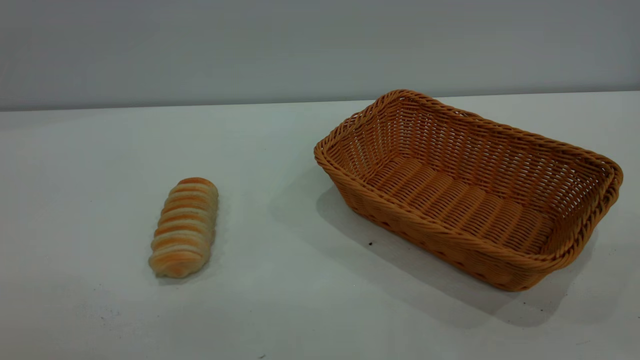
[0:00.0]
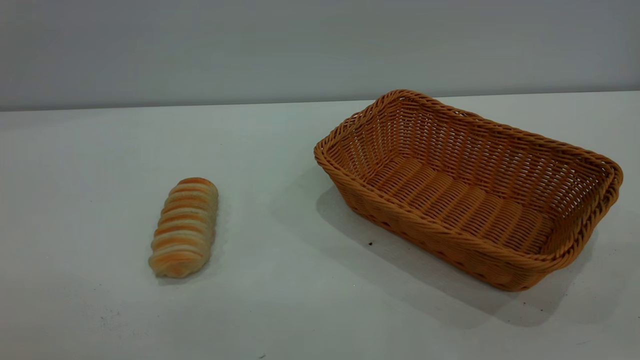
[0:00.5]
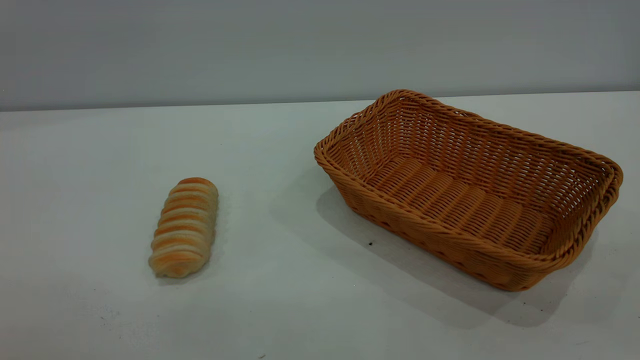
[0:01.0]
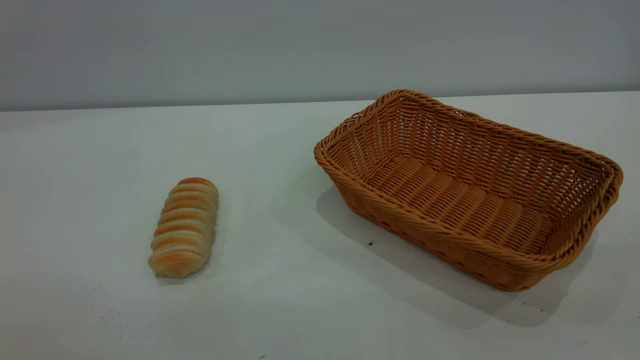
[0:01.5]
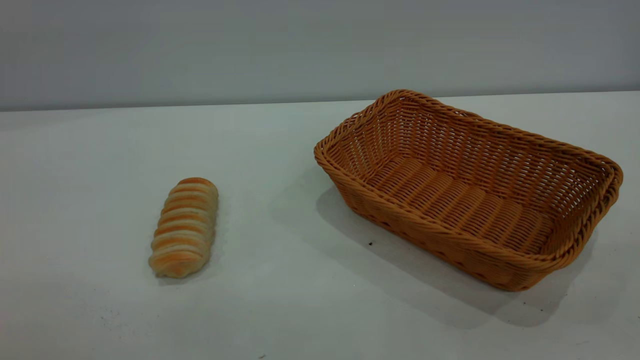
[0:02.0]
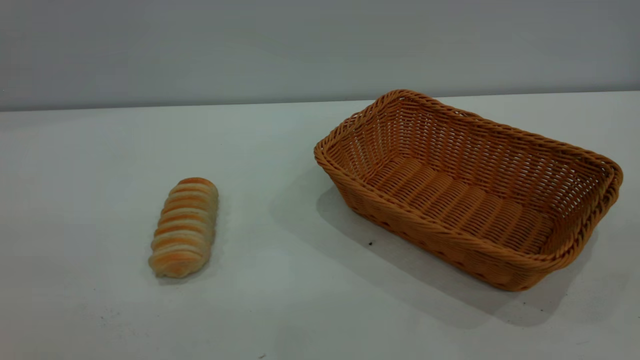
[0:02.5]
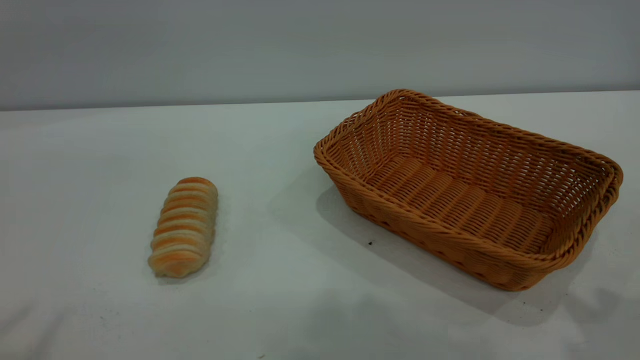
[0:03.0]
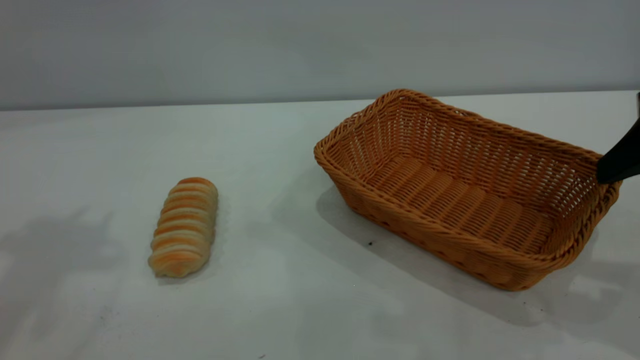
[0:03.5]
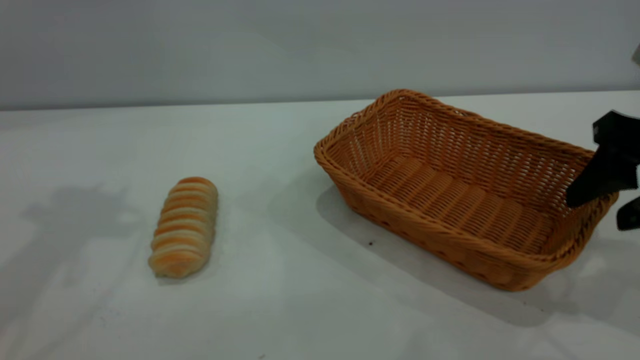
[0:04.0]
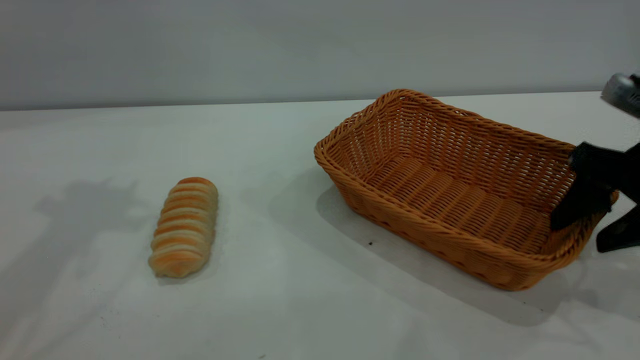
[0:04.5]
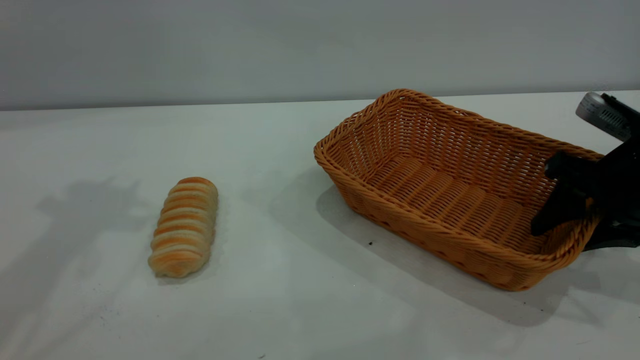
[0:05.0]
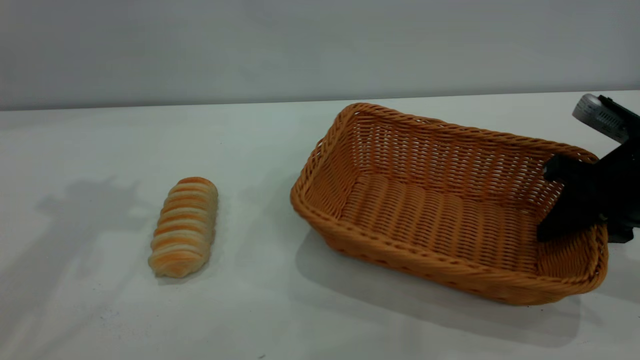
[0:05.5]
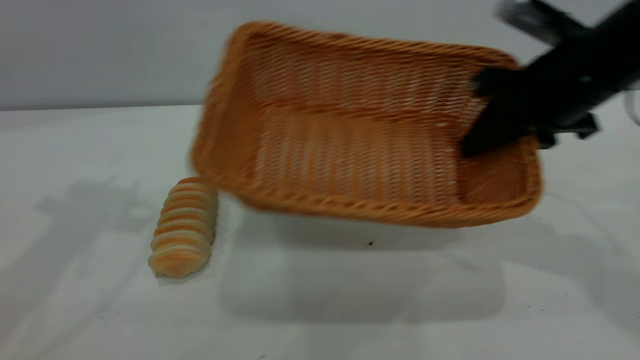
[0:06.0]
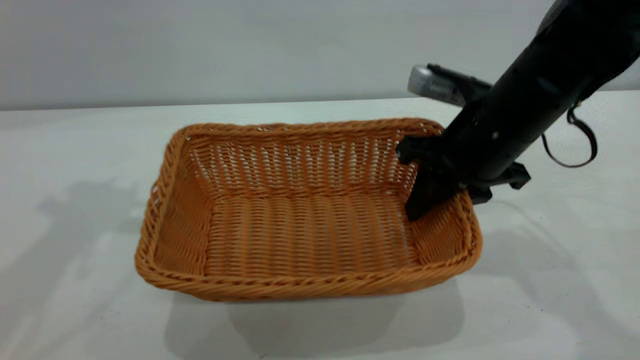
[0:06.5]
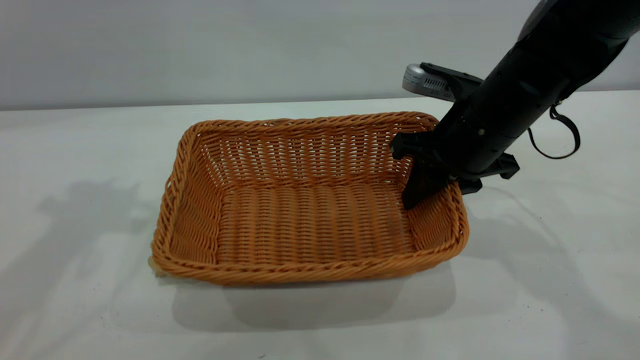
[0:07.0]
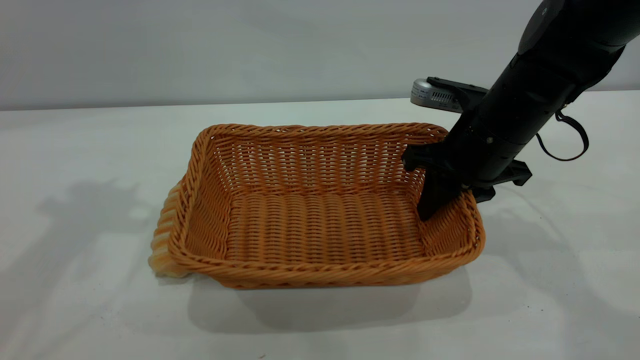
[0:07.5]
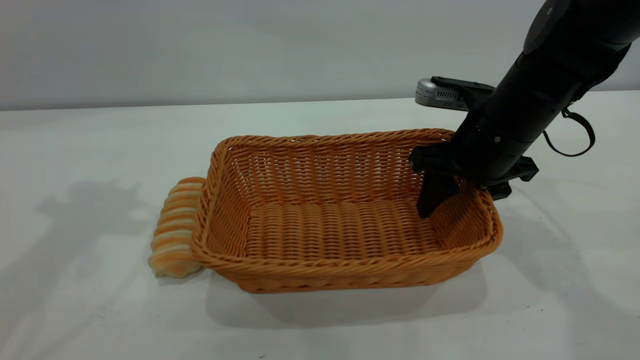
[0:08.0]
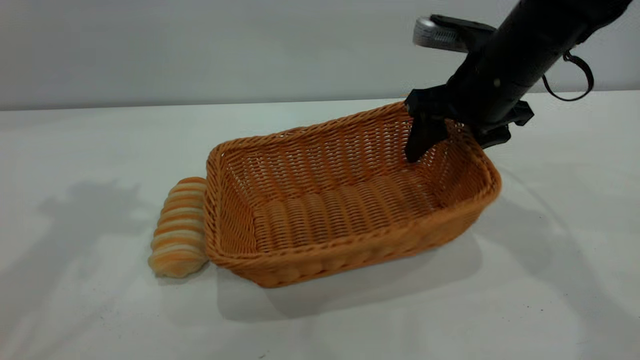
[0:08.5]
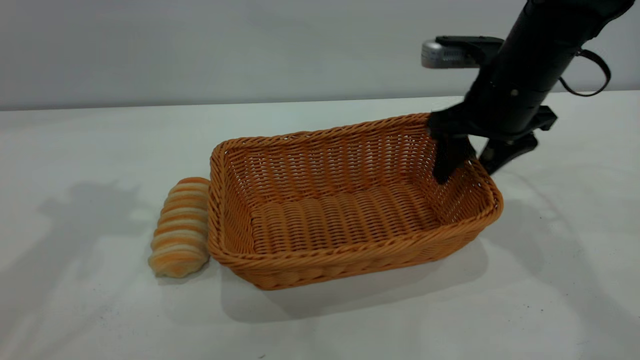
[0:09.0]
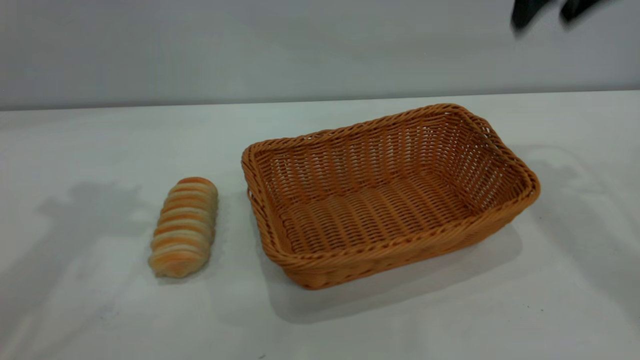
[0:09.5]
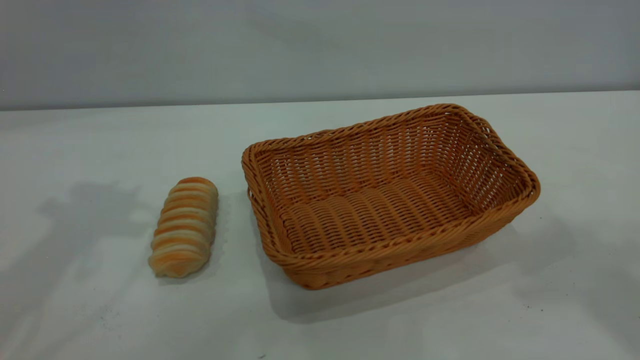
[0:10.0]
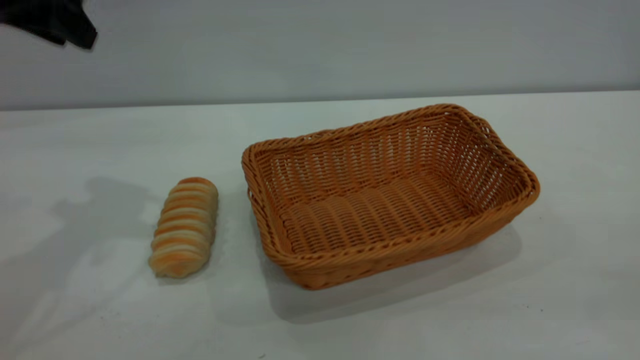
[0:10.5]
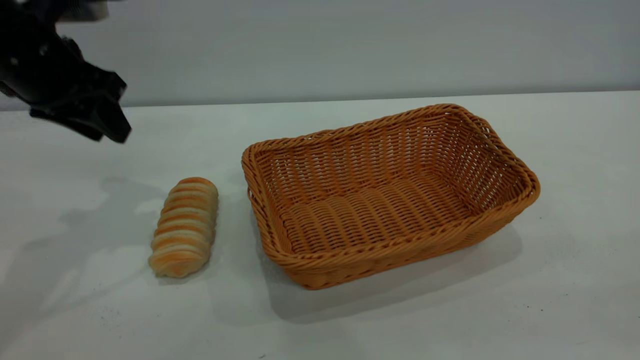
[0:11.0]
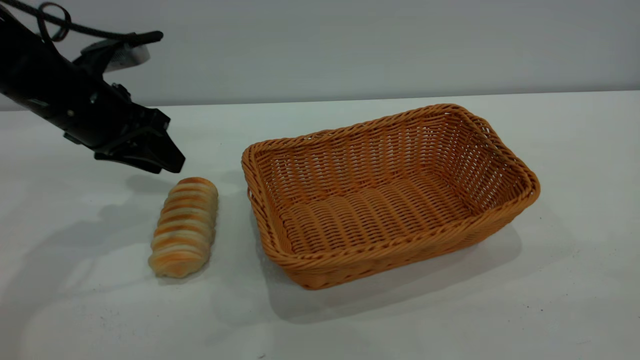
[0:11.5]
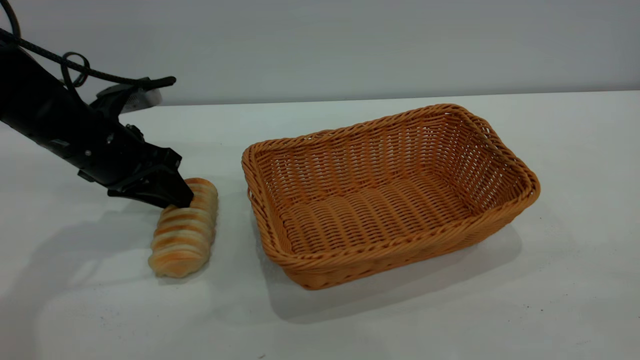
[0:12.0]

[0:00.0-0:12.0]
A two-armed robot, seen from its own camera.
Task of the whole recording: One hand grasps the yellow basket and places it in the middle of the table, while the other hand picks up the long bread and puts it into the yellow basket.
Step, 0:00.0 to 0:09.0: Move the basket to the center of view.
0:00.0 to 0:02.0: The two grippers keep their place.
0:02.0 to 0:04.0: The right gripper is displaced forward and downward by some 30 cm, and opens.
0:04.0 to 0:06.0: The right gripper goes approximately 10 cm forward and to the left, and closes its fingers.
0:06.0 to 0:08.0: The right gripper moves downward, some 5 cm, and opens.
0:08.0 to 0:10.0: The right gripper moves upward, approximately 35 cm.
0:10.0 to 0:12.0: The left gripper is displaced downward by roughly 25 cm.

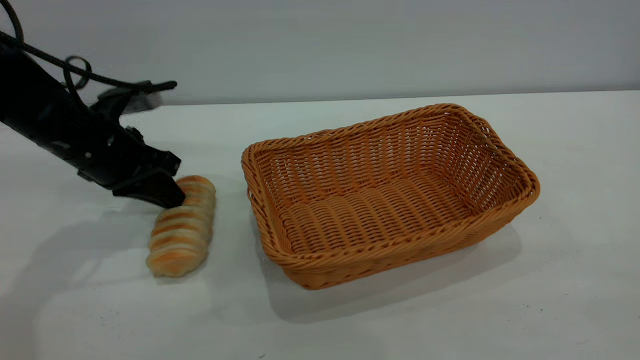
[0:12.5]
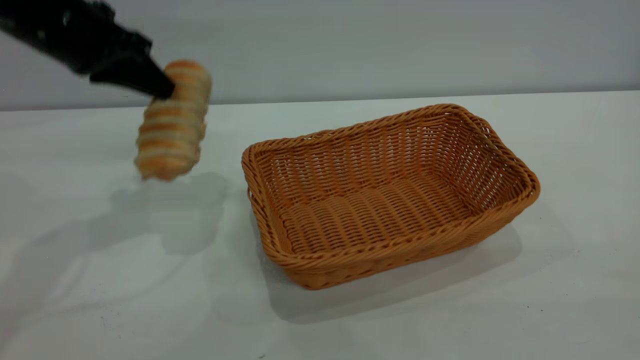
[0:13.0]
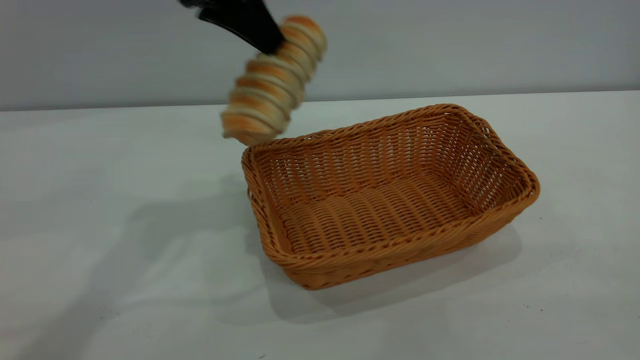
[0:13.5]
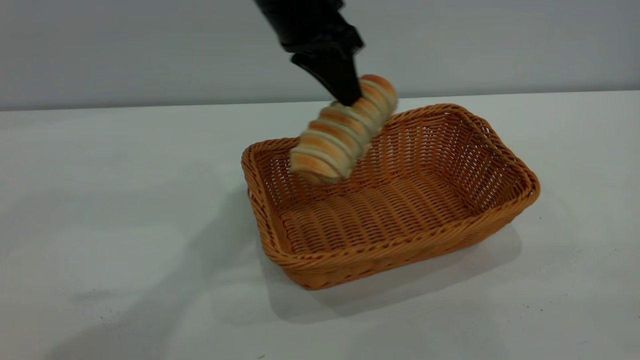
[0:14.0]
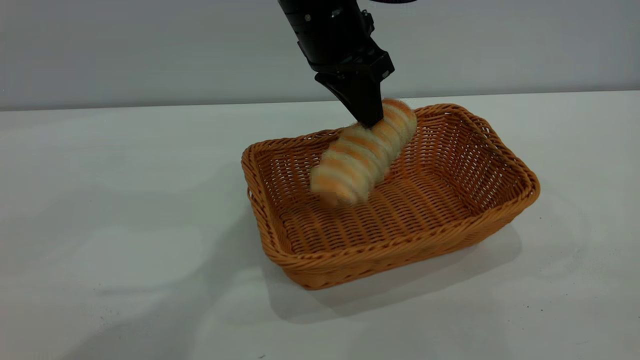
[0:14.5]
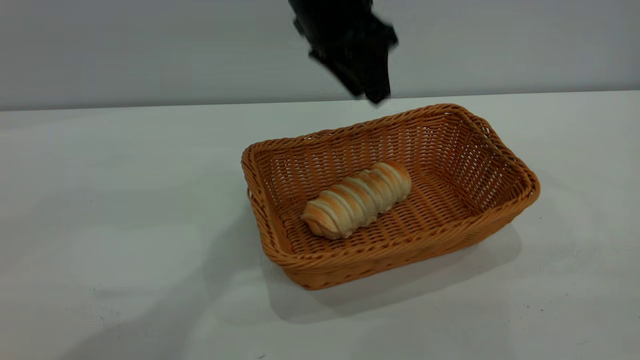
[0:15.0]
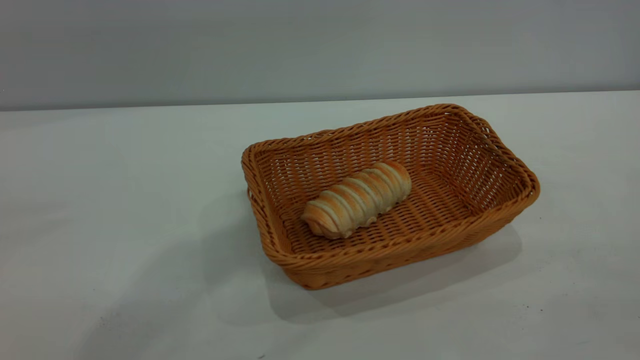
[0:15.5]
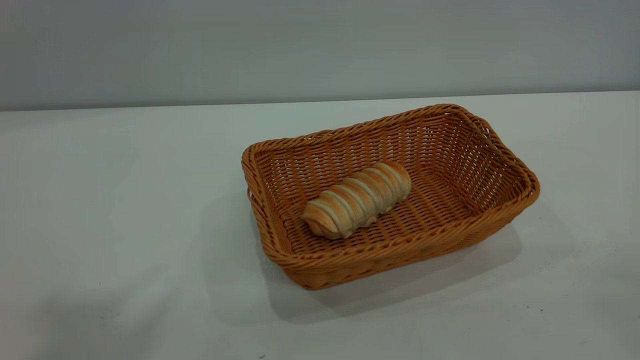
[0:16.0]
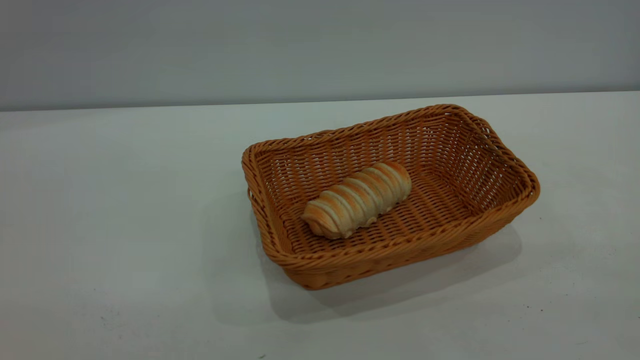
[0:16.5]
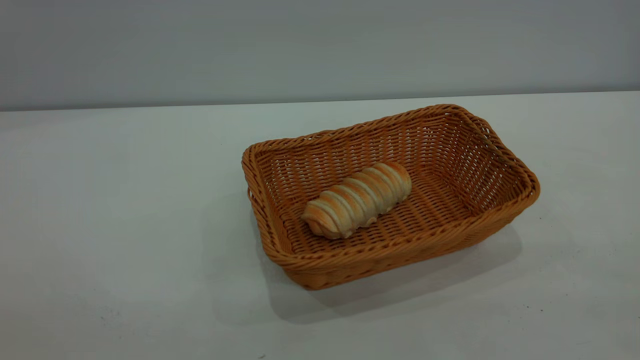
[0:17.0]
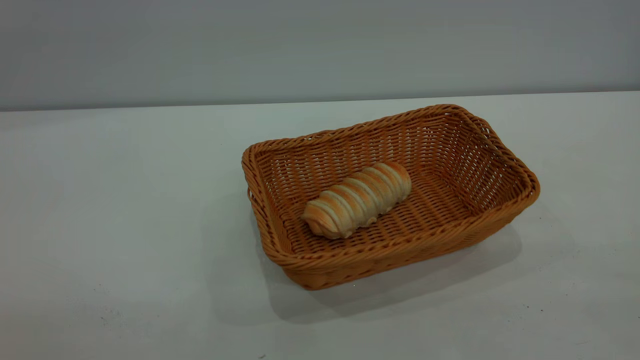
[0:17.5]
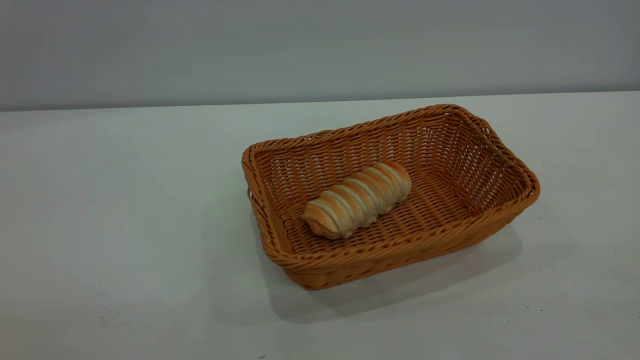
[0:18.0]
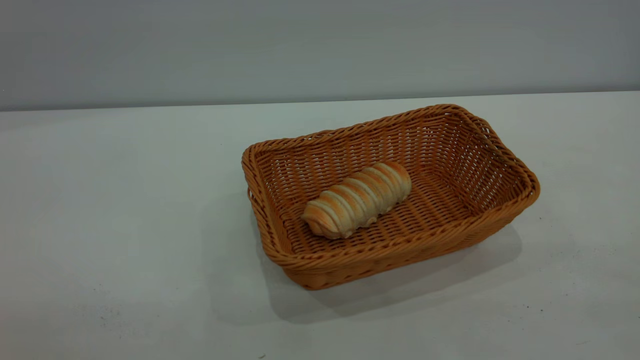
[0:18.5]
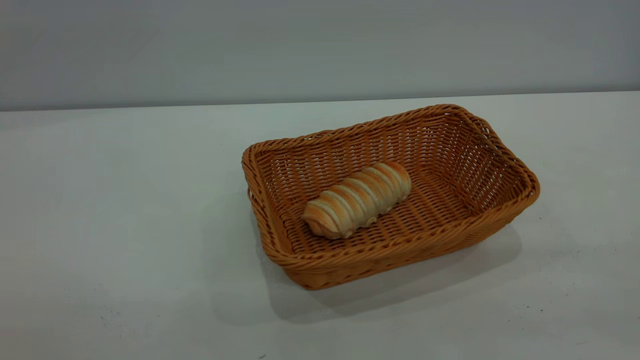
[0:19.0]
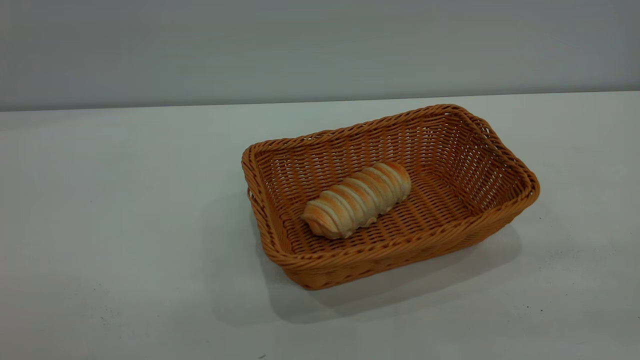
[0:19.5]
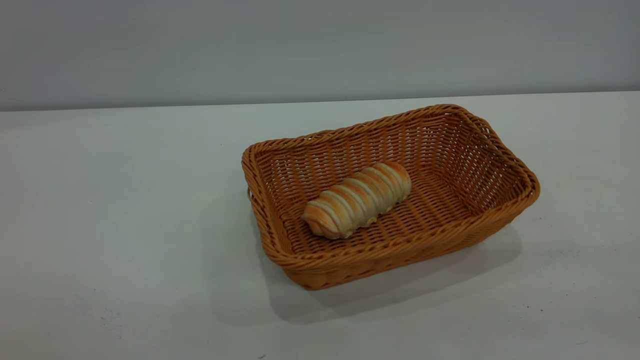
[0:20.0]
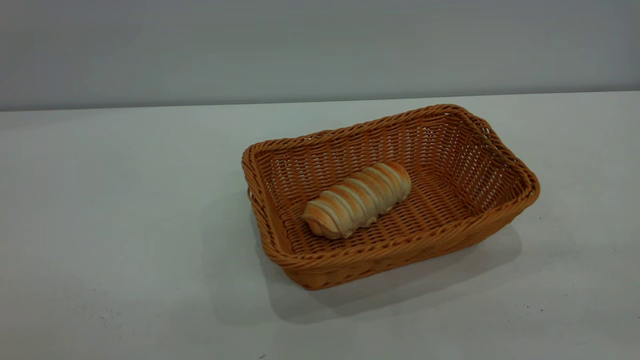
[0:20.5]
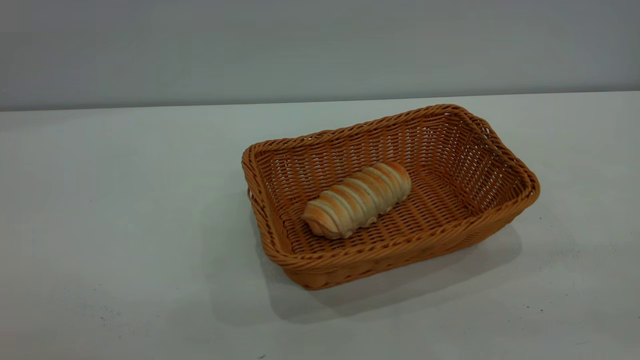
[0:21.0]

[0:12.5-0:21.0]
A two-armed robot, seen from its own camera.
Task of the whole recording: One hand grasps the yellow basket and places it in the middle of the table, while the other hand picks up the long bread and puts it into the yellow basket.
Step, 0:13.0 to 0:14.5: place the bread into the basket.
0:12.5 to 0:14.5: The left gripper travels to the right and upward by roughly 30 cm.
0:14.5 to 0:16.5: The left gripper goes about 60 cm backward, upward and to the left, and opens.
